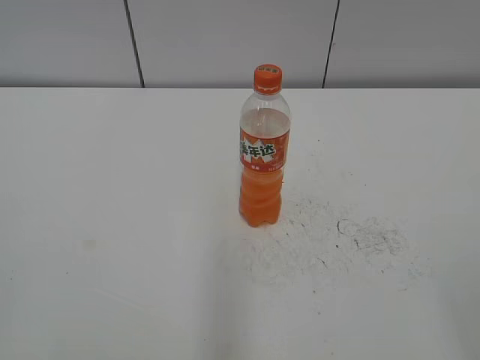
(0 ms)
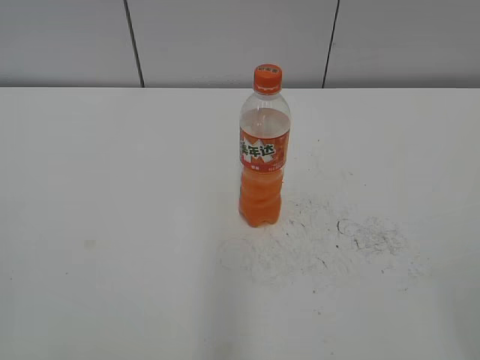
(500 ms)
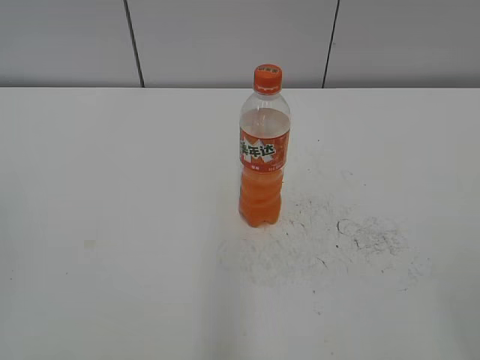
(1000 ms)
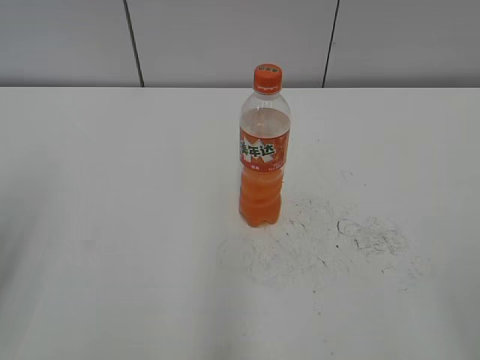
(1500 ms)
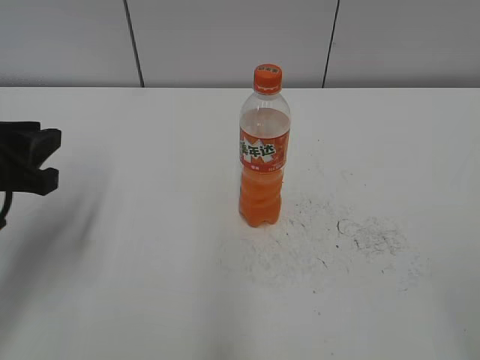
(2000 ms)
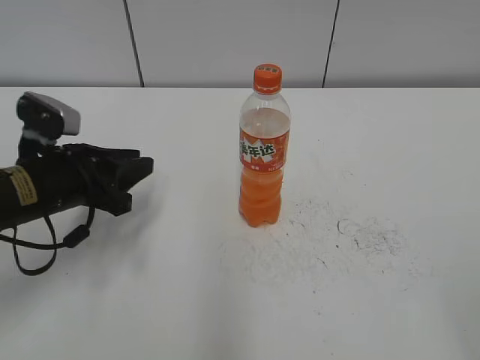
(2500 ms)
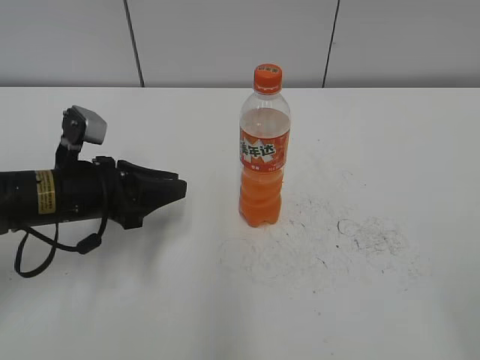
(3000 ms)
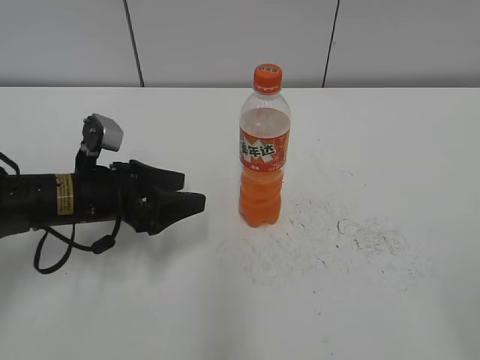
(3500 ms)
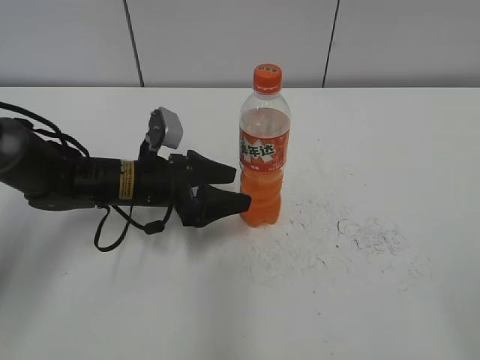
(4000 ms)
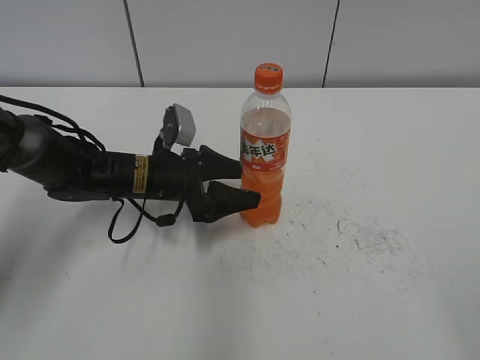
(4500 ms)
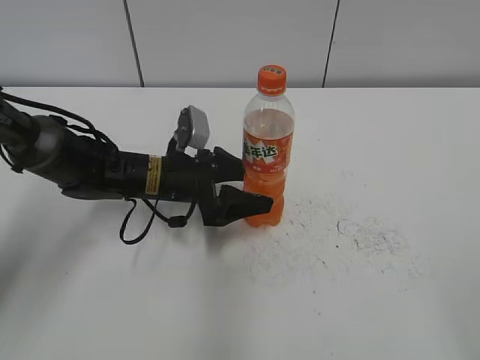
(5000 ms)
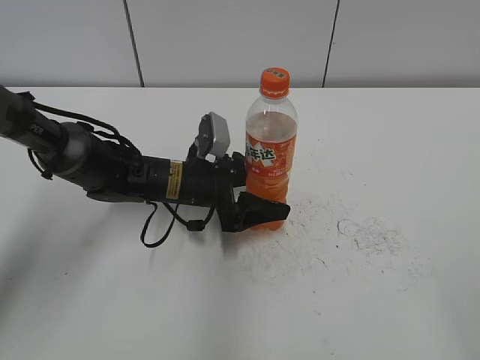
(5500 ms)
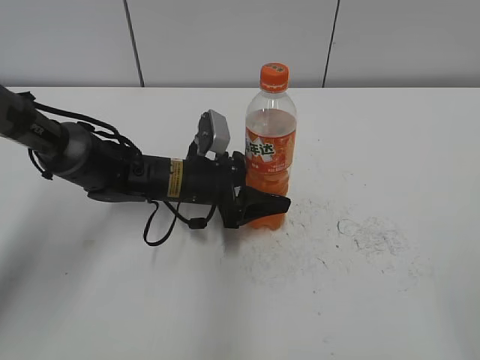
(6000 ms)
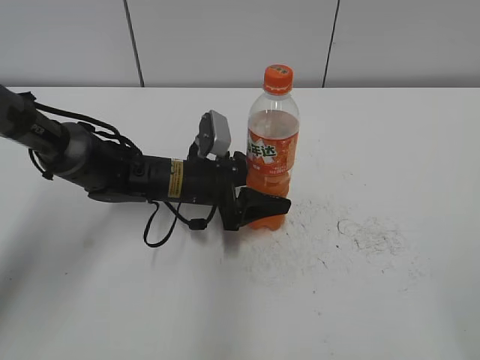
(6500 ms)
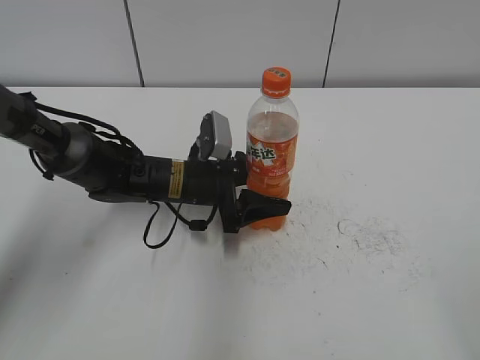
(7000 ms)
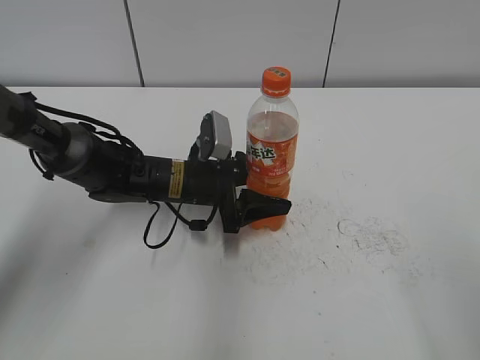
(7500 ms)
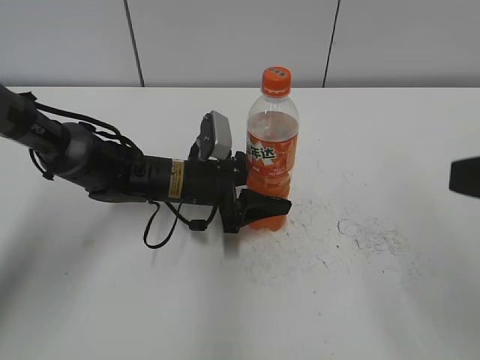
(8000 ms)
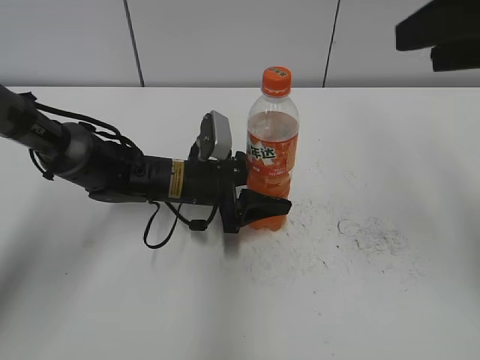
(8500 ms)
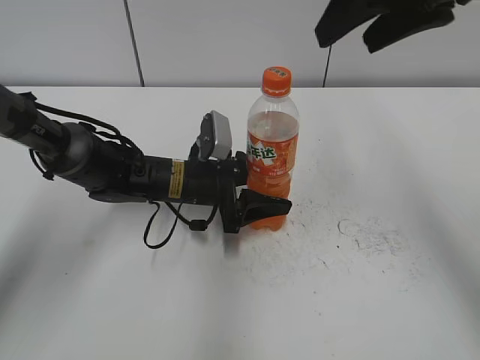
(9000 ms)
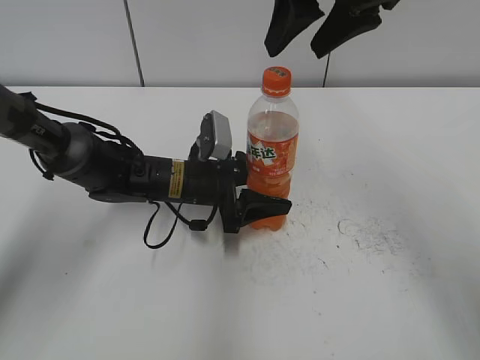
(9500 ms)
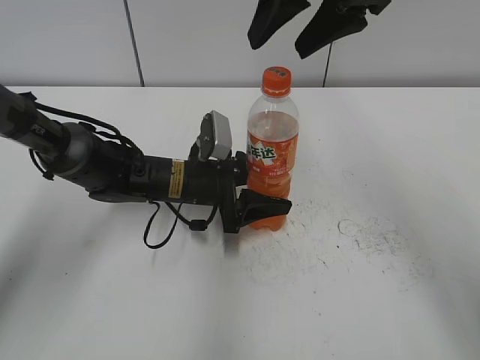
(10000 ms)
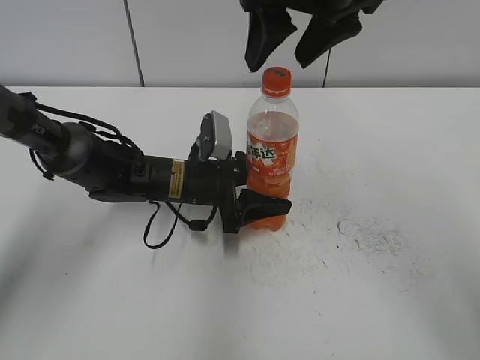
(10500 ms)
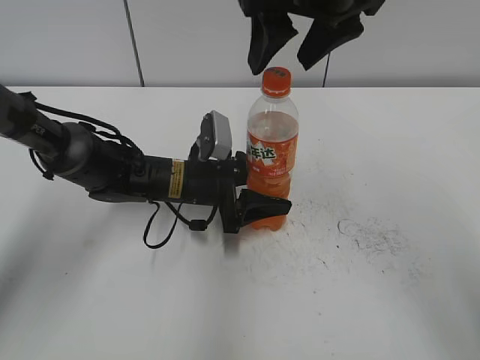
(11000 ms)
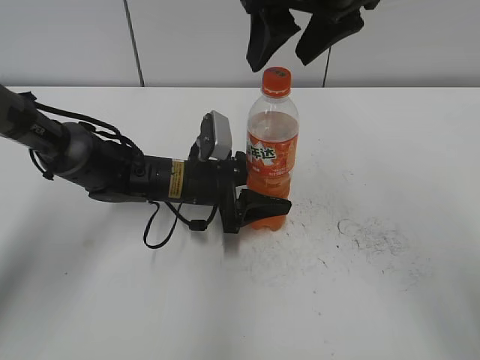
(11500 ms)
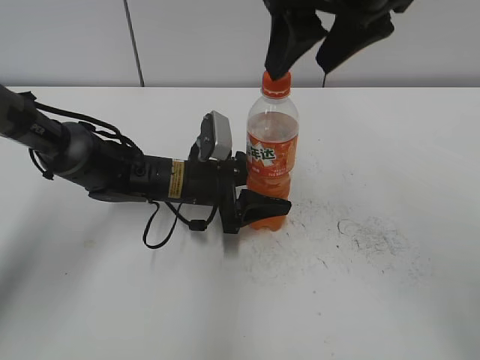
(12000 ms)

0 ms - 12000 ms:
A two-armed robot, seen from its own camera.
Step, 0 ms - 6000 ms: Grab the Mirinda with the left hand.
2000 ms - 4000 ms: The left gripper heads to the right, downward and forward, covering roughly 20 cm, and opens.
4000 ms - 6000 ms: The left gripper moves to the right, about 5 cm.
6000 ms - 8000 ms: The right gripper travels forward by about 10 cm.
8000 ms - 10000 ms: The right gripper heads forward and to the left, covering about 30 cm.
10000 ms - 12000 ms: The grippers make only small movements.

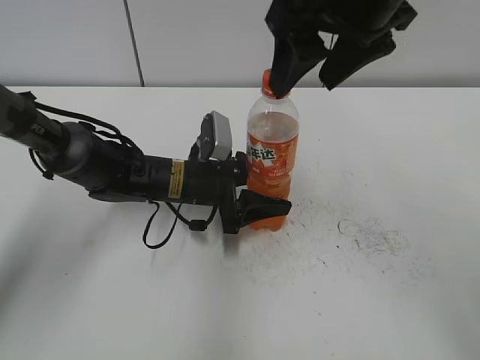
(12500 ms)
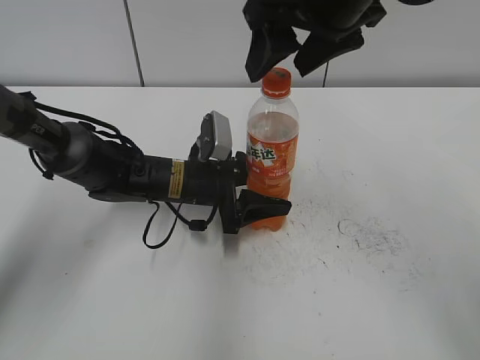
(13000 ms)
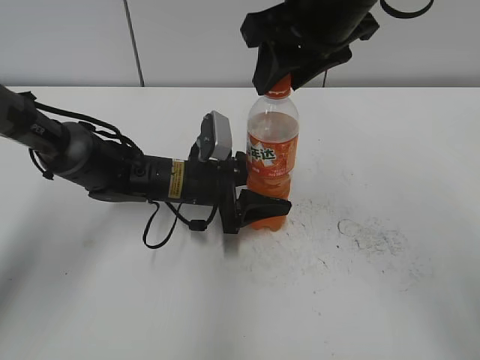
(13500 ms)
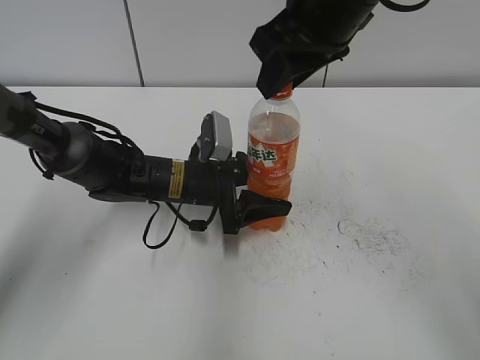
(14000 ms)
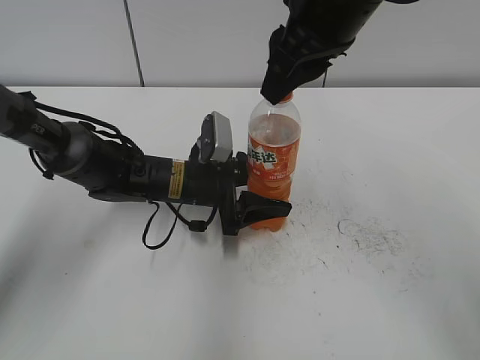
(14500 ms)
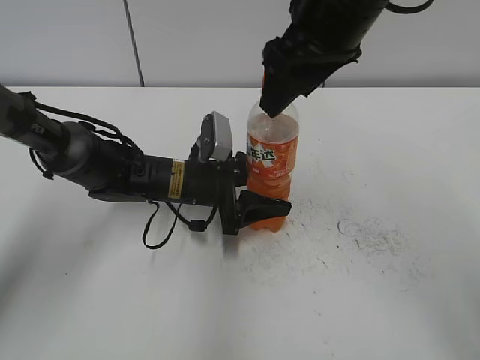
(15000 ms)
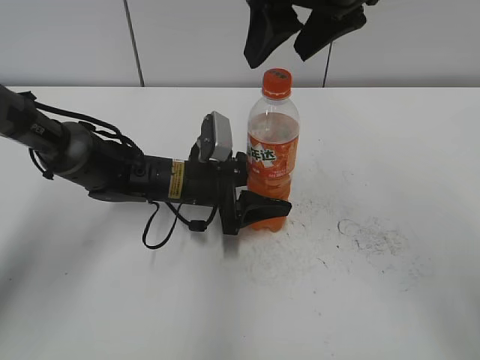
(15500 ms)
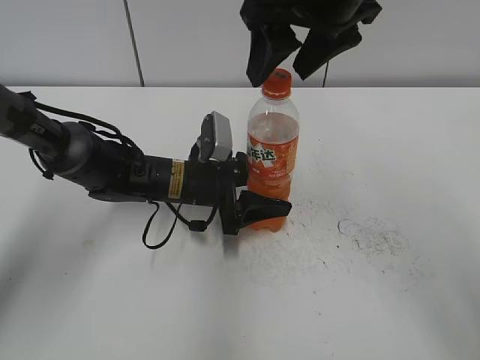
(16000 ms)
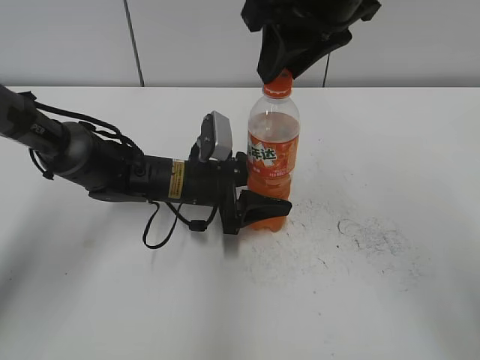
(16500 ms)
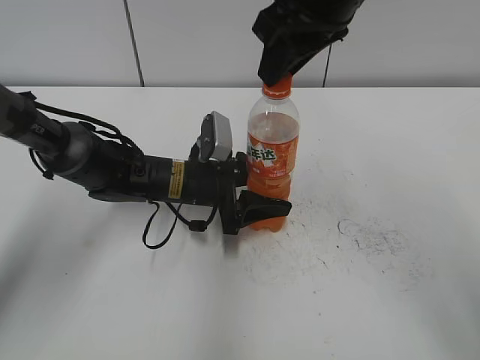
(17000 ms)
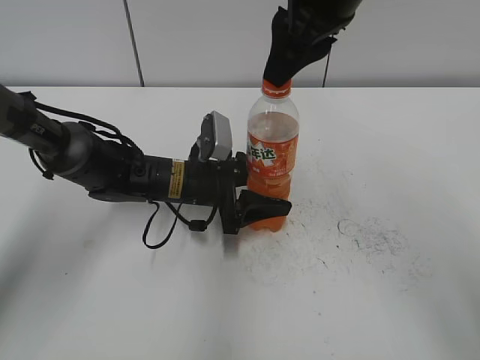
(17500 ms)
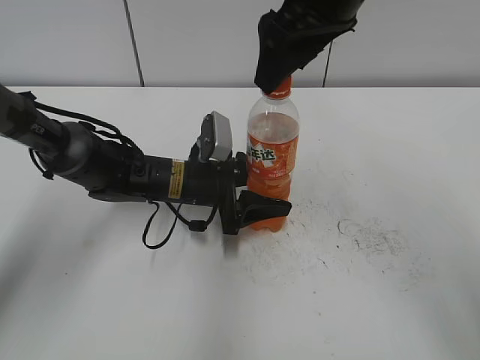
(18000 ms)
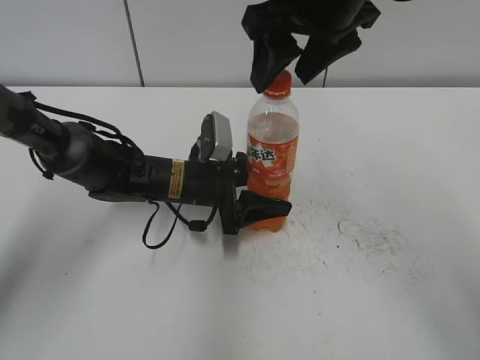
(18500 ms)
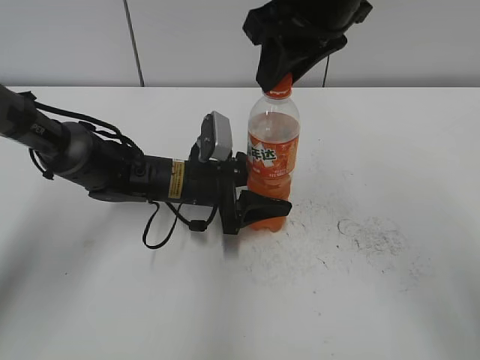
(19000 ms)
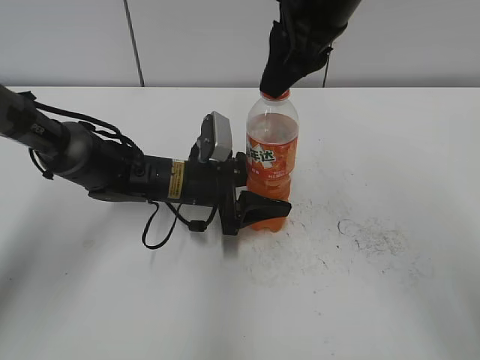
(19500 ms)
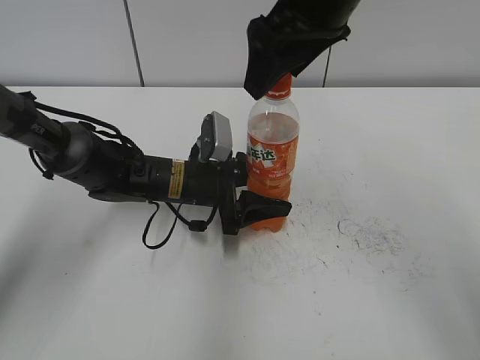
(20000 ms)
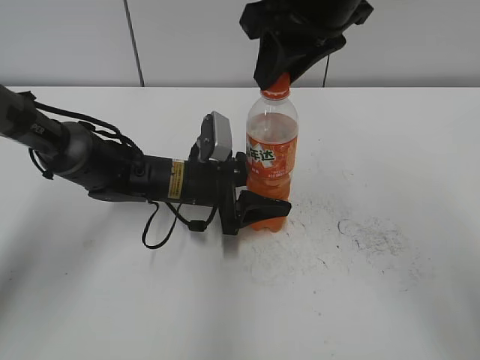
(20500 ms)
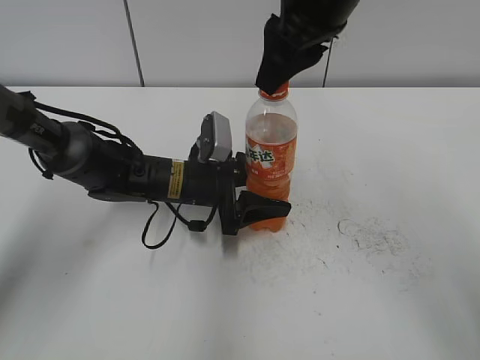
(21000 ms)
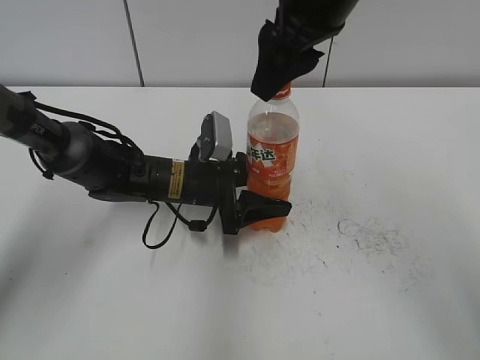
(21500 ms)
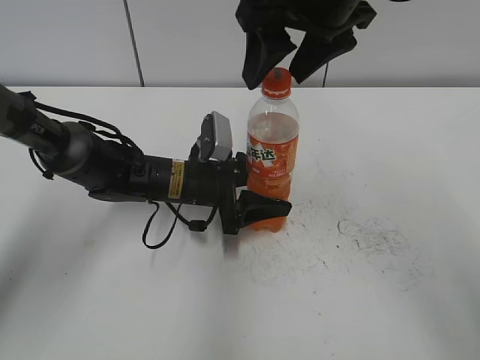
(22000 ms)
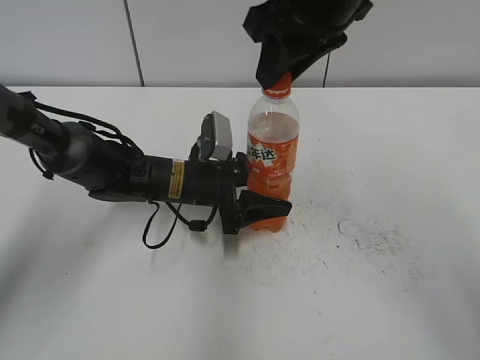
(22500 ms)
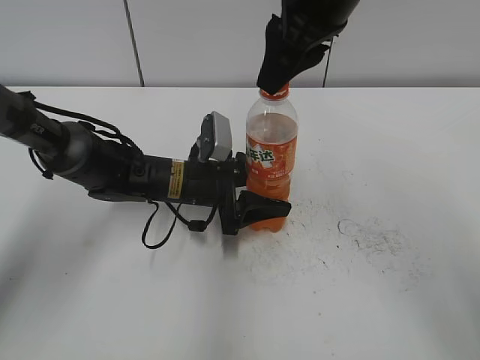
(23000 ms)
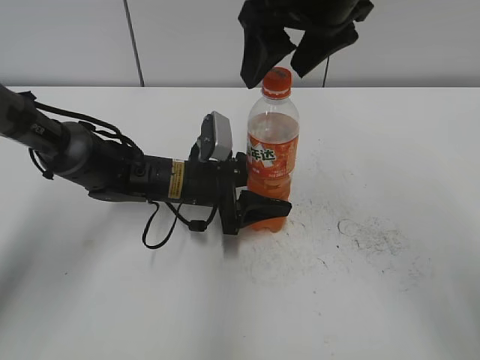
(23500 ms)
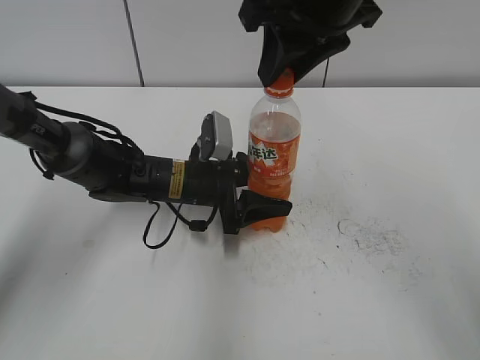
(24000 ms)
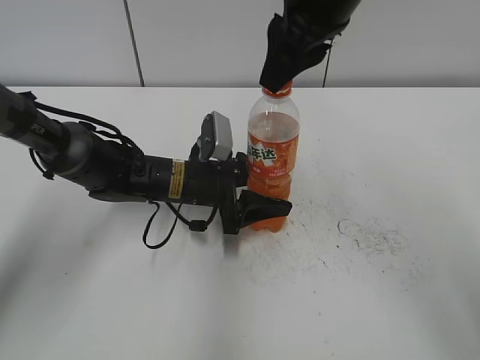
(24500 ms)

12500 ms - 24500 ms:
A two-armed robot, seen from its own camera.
12500 ms - 14500 ms: The right gripper closes its fingers.
14500 ms - 16500 ms: The right gripper opens and closes again.
16500 ms - 18500 ms: The right gripper opens its fingers.
18500 ms - 20500 ms: The right gripper closes.
20500 ms - 22500 ms: The right gripper opens and closes again.
22500 ms - 24500 ms: The right gripper opens, then closes again.

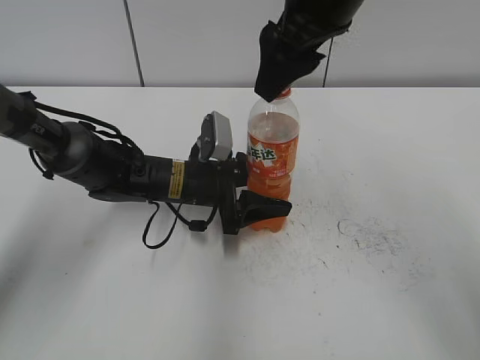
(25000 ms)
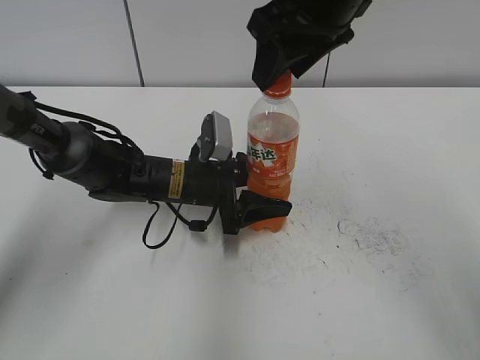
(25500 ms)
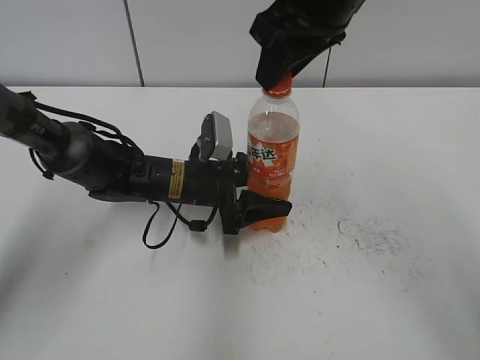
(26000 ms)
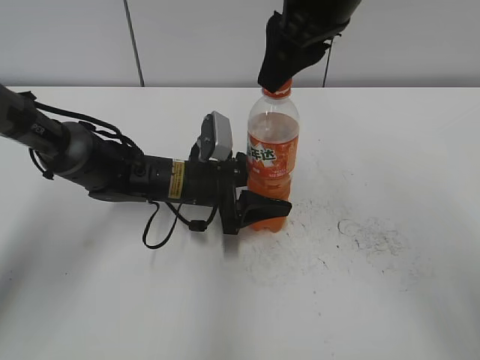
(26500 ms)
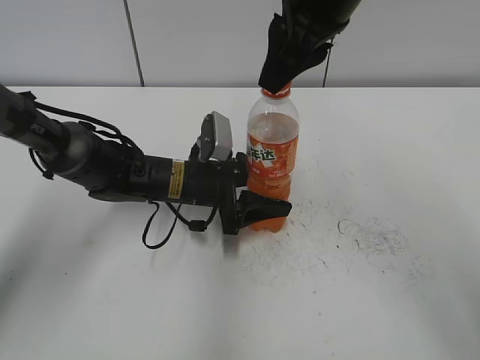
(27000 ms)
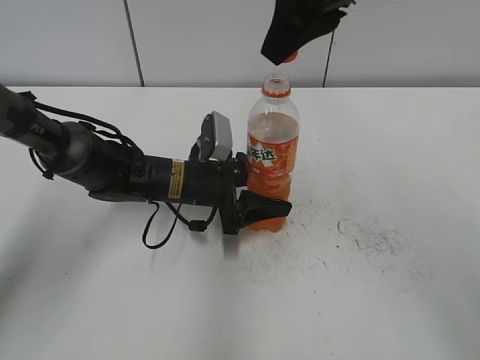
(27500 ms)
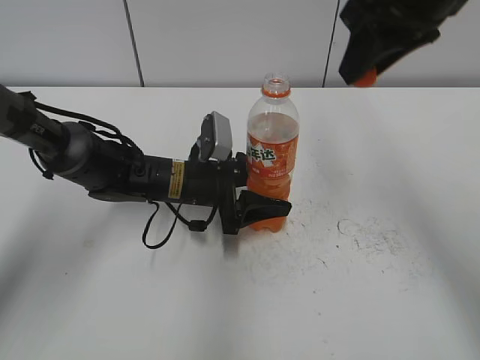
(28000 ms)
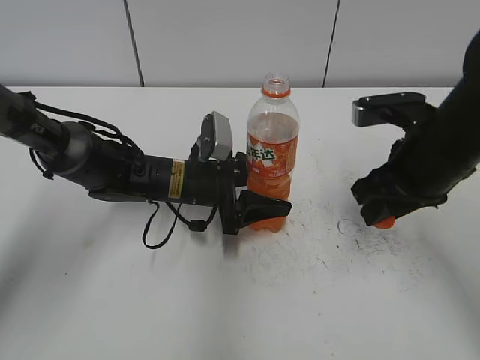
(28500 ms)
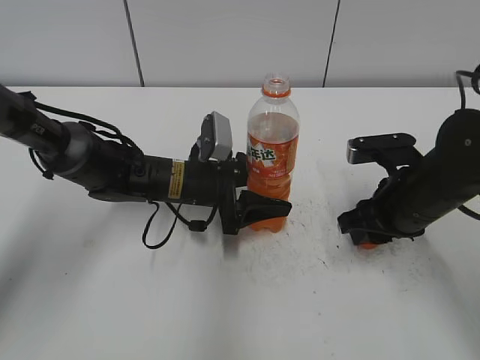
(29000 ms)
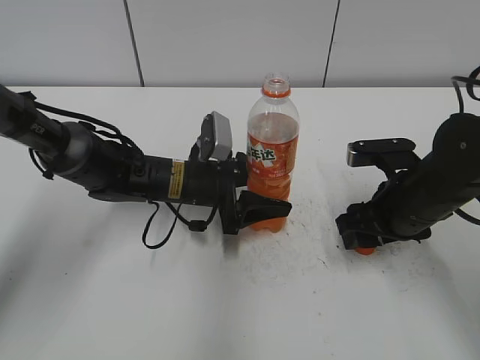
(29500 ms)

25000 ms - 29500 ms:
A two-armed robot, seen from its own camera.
Step, 25000 ms - 27500 ms: Twist the bottle cap with the right hand.
25000 ms - 27000 ms: The right gripper closes its fingers.
27000 ms - 29500 ms: The right gripper travels downward and to the right by some 25 cm, and opens.
